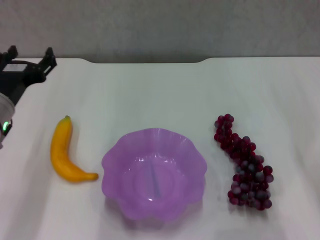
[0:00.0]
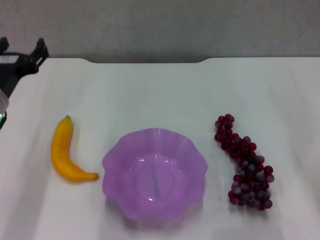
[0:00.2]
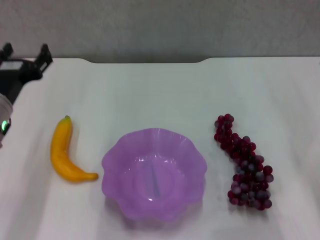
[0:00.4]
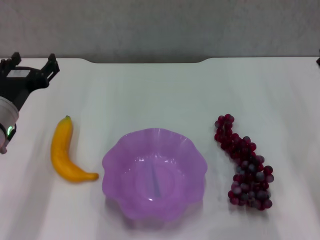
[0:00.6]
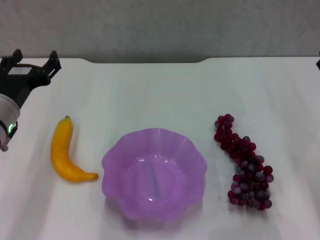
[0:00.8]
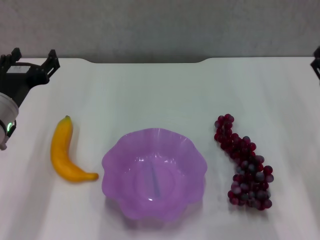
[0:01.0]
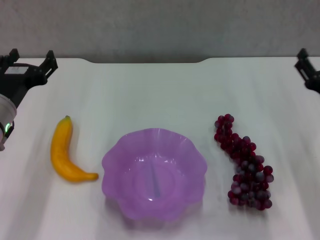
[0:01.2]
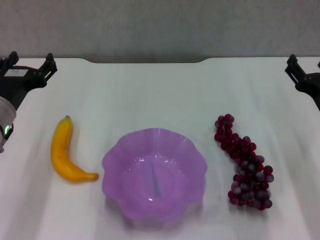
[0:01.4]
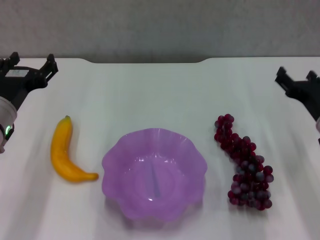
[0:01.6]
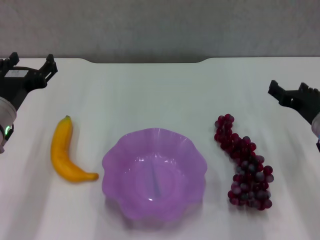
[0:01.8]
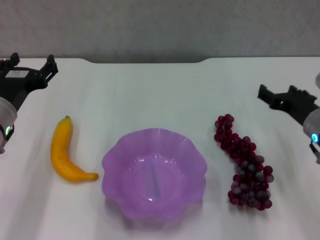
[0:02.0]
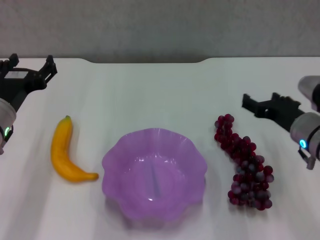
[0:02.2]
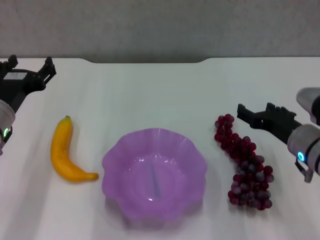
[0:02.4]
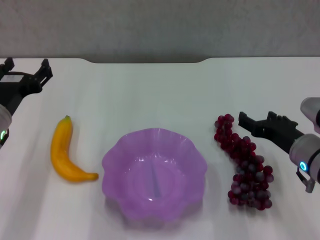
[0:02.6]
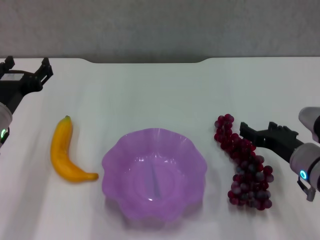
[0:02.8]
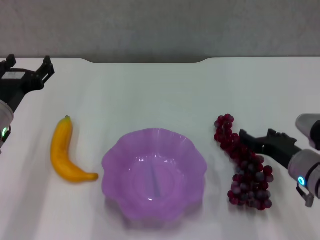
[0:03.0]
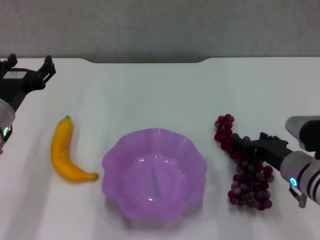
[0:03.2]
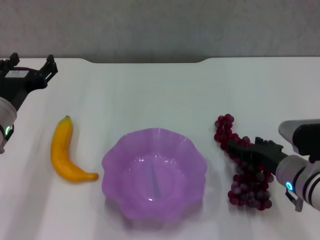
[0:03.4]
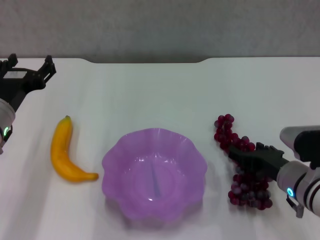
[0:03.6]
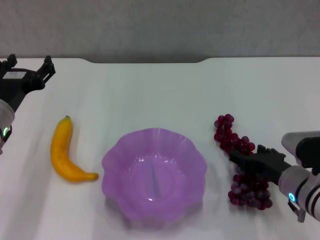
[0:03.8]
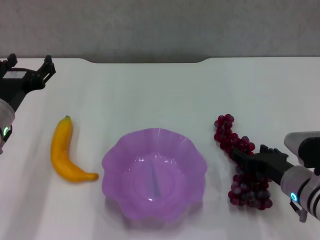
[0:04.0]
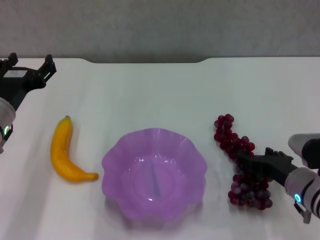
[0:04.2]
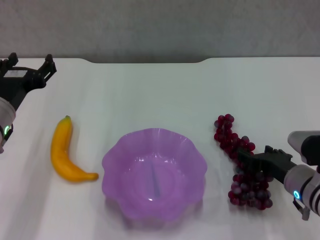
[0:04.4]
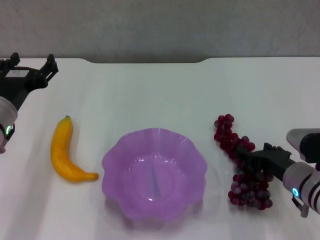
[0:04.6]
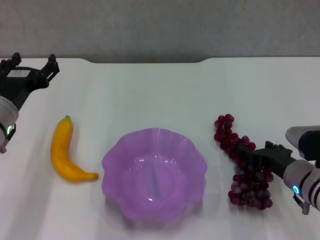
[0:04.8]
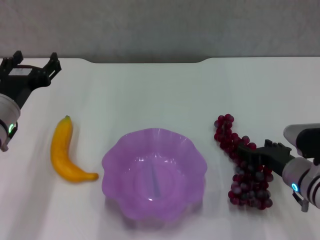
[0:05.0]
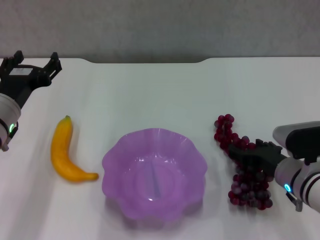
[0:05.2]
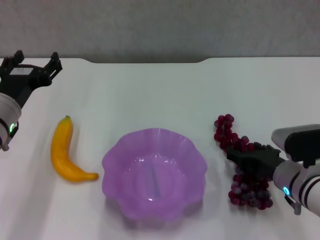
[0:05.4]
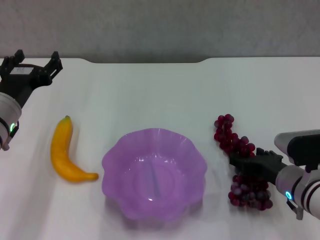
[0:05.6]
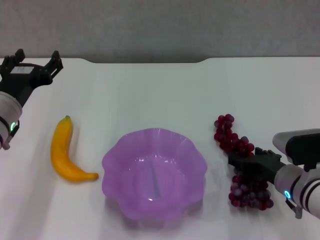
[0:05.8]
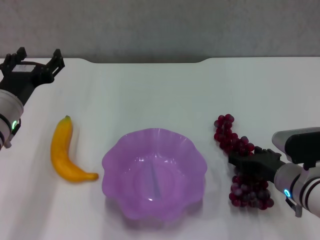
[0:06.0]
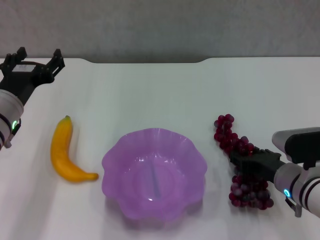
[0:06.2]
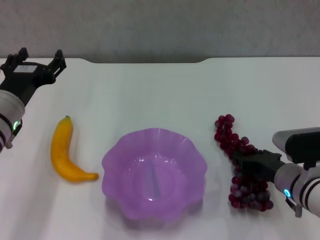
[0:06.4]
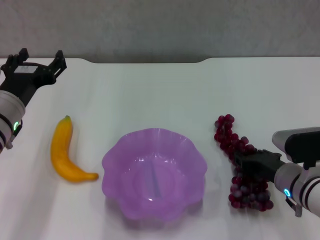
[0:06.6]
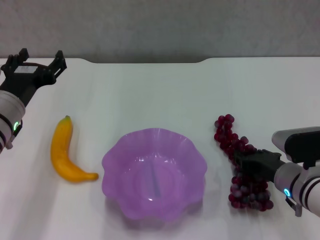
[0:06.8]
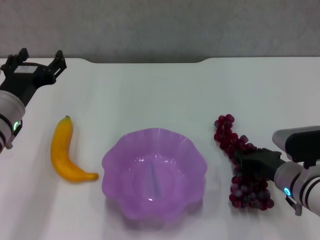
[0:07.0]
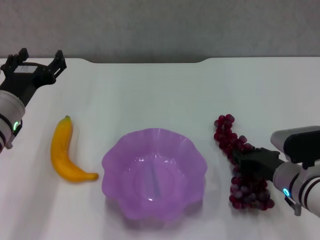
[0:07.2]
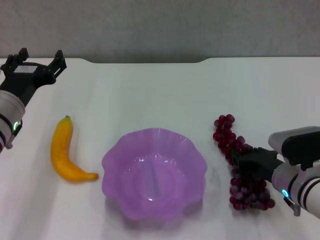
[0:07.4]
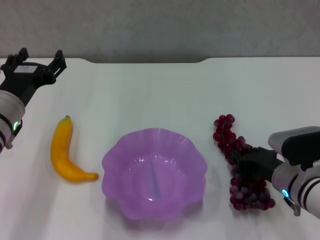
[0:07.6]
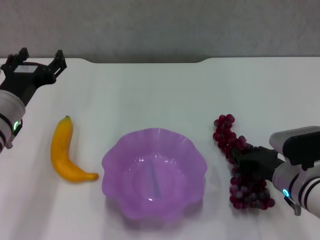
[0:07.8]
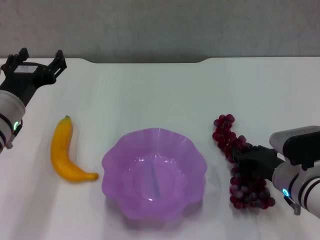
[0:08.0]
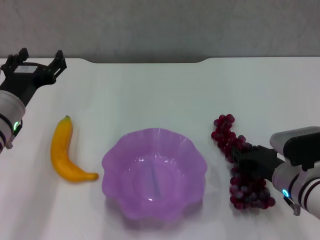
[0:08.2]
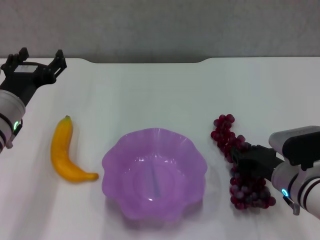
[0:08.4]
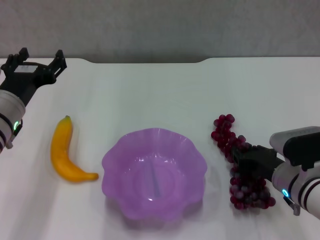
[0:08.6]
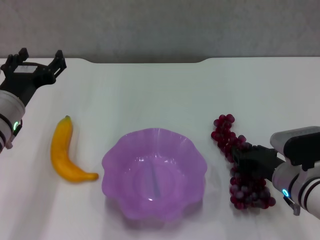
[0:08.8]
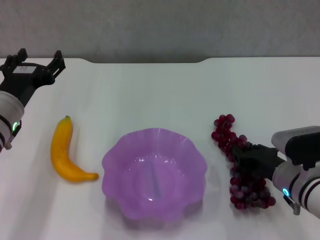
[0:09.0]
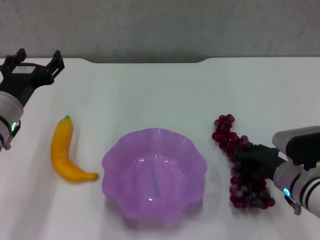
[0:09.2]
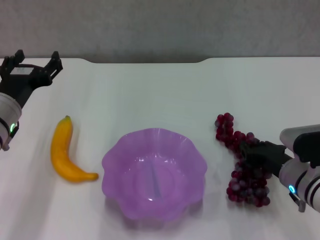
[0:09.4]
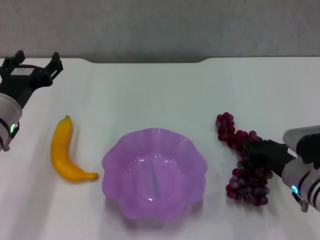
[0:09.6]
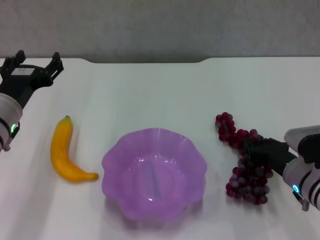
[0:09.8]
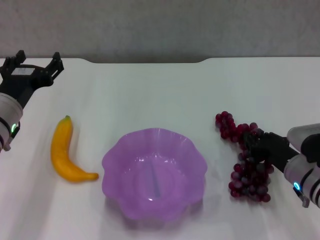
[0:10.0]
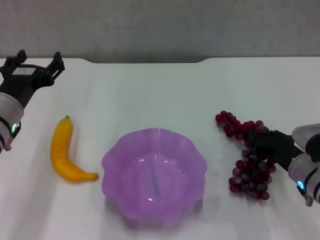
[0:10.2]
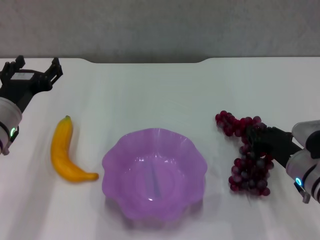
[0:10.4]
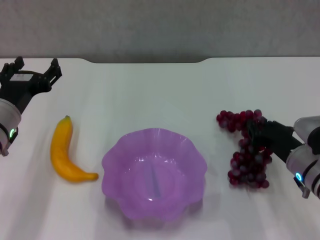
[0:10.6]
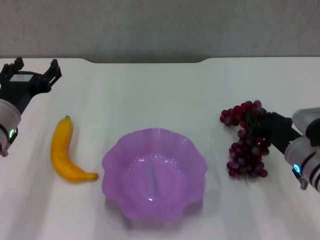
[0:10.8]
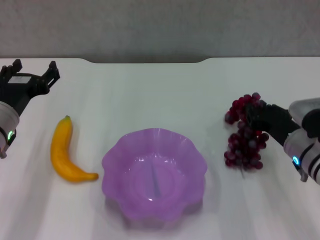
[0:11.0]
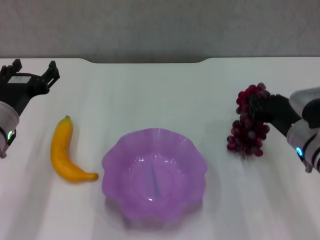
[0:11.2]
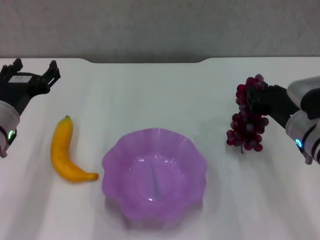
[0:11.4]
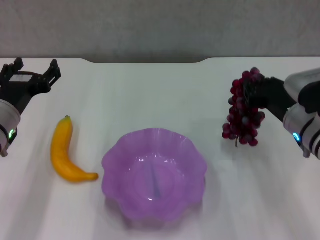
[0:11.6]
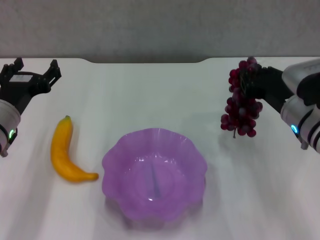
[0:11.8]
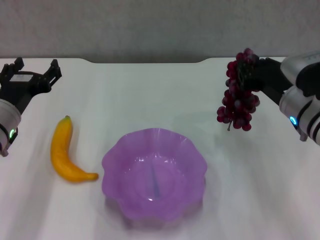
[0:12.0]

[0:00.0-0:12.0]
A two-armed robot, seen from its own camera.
Step, 0:00.0 to 0:06.6: Grasp the grape with right gripper.
0:00.0 to 0:01.6: The right gripper ends up roughly 5 cm from where it was.
0:01.6 to 0:03.0: The right gripper shifts by about 5 cm.
0:03.0 to 0:06.0: The grippers make only small movements.
0:06.0 to 0:07.6: The right gripper closes its fingers.
0:07.6 to 0:09.0: Both grippers stay about where they are.
0:09.0 to 0:10.4: The grippers stay close to where they were, moving slightly.
0:10.4 to 0:12.0: The right gripper is displaced upward by roughly 10 cm.

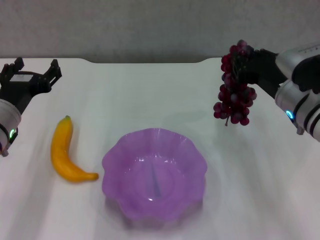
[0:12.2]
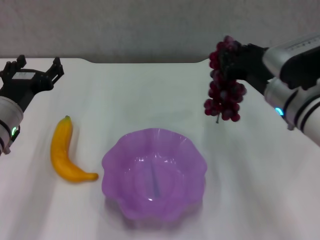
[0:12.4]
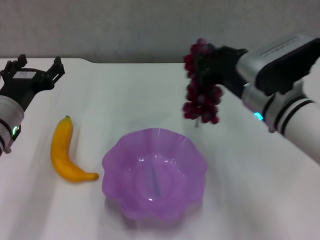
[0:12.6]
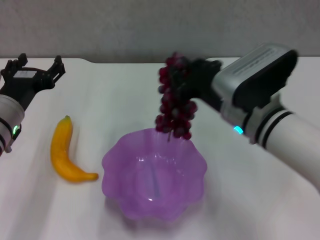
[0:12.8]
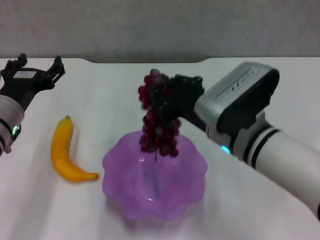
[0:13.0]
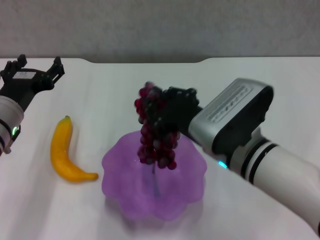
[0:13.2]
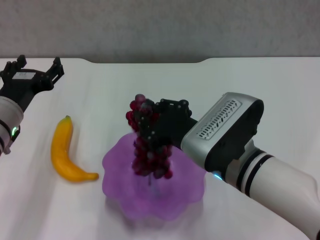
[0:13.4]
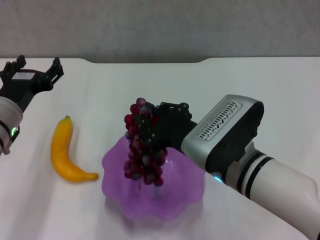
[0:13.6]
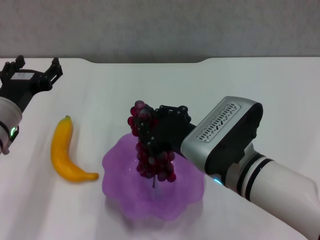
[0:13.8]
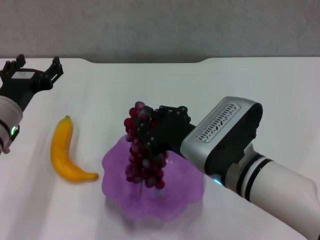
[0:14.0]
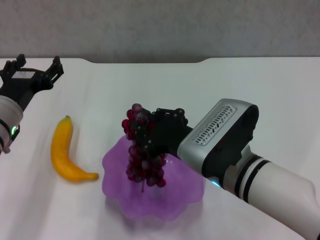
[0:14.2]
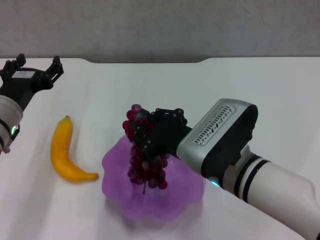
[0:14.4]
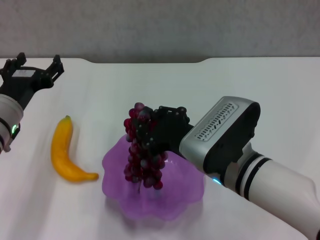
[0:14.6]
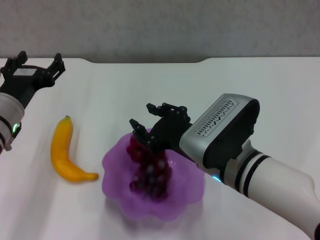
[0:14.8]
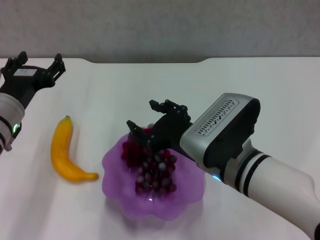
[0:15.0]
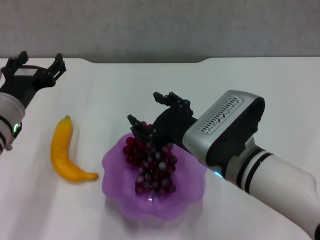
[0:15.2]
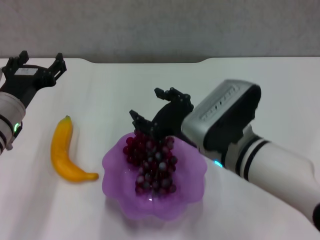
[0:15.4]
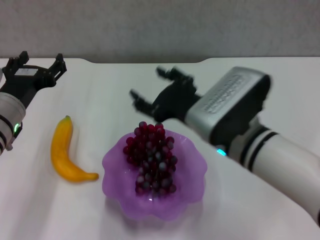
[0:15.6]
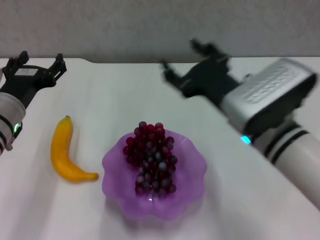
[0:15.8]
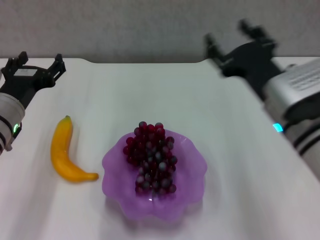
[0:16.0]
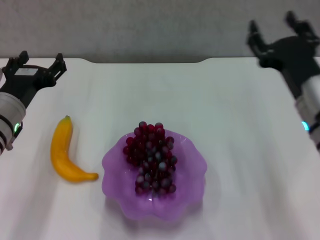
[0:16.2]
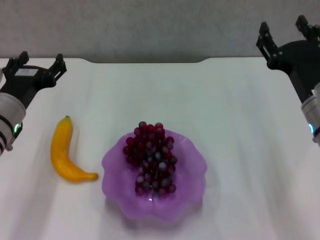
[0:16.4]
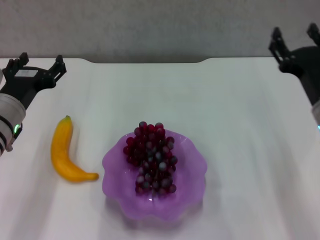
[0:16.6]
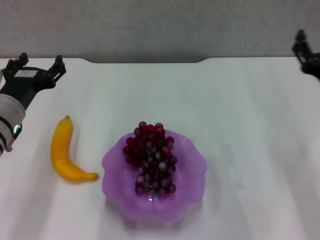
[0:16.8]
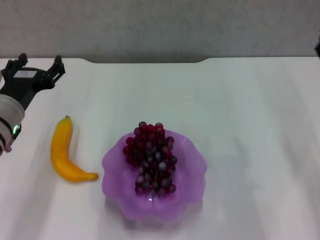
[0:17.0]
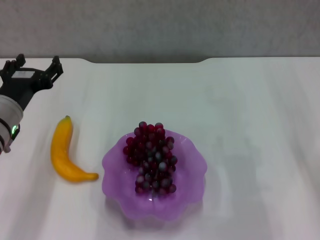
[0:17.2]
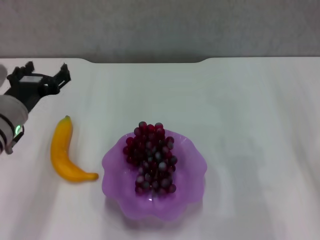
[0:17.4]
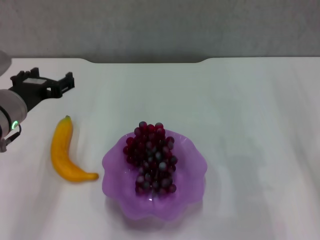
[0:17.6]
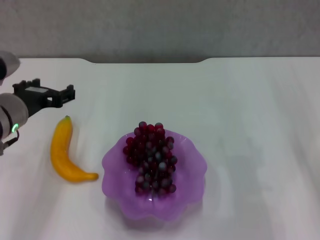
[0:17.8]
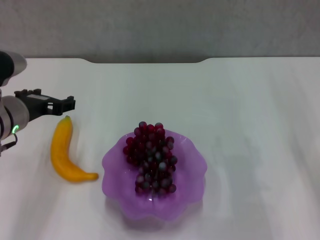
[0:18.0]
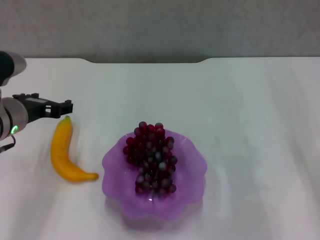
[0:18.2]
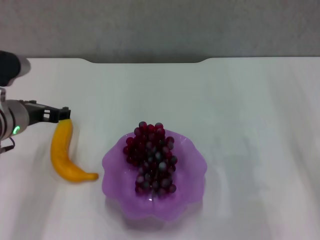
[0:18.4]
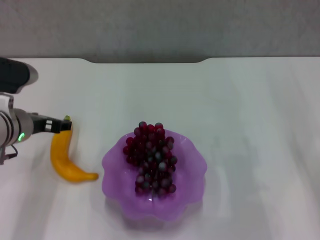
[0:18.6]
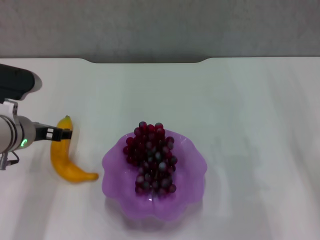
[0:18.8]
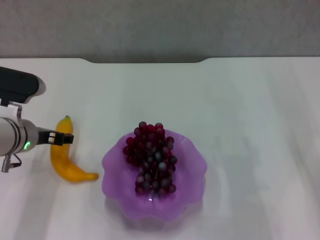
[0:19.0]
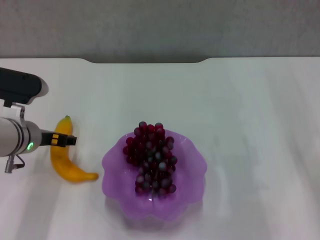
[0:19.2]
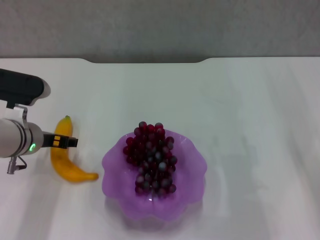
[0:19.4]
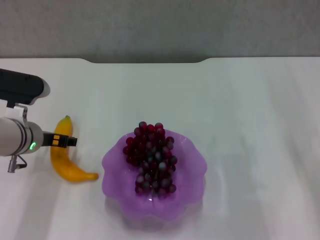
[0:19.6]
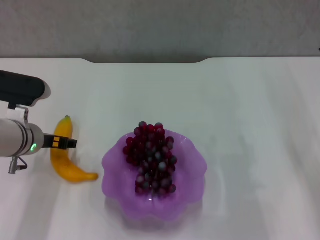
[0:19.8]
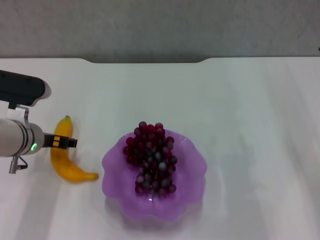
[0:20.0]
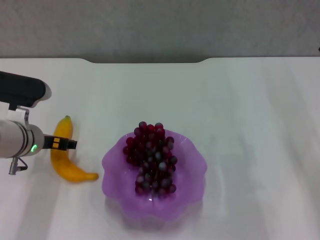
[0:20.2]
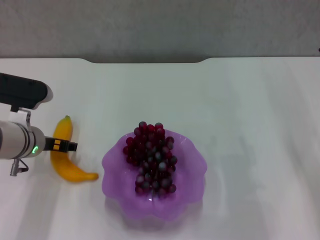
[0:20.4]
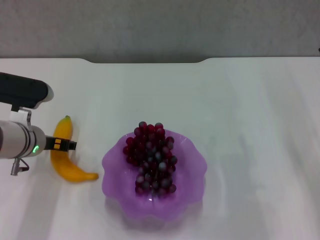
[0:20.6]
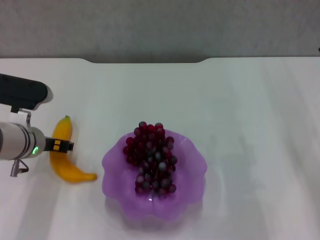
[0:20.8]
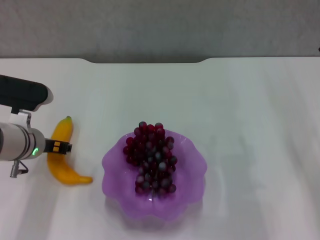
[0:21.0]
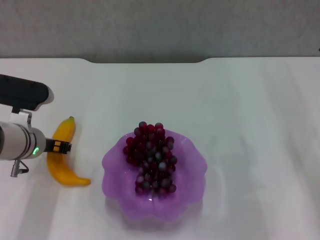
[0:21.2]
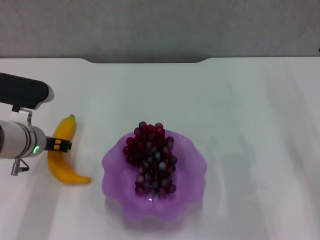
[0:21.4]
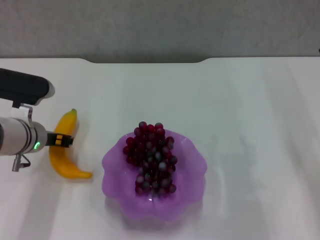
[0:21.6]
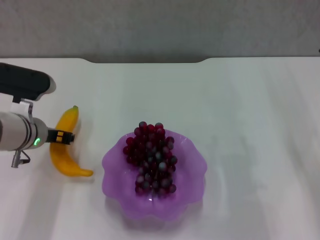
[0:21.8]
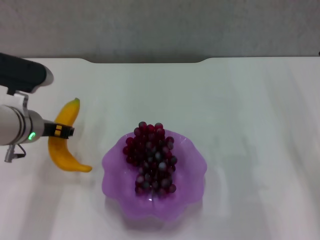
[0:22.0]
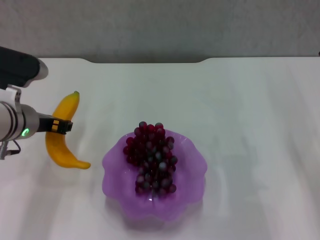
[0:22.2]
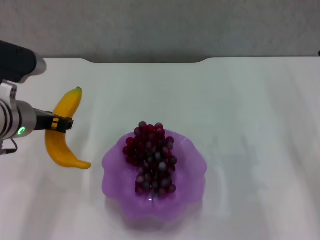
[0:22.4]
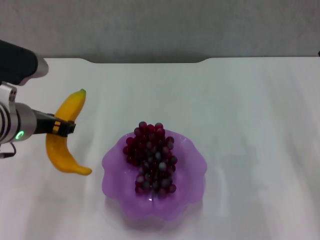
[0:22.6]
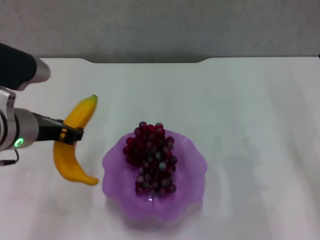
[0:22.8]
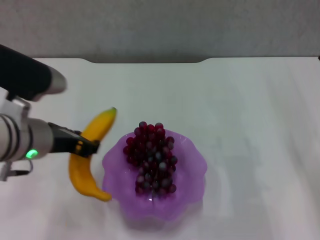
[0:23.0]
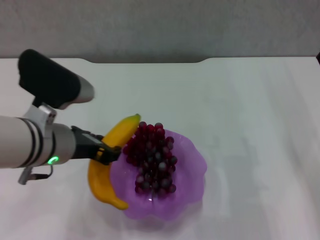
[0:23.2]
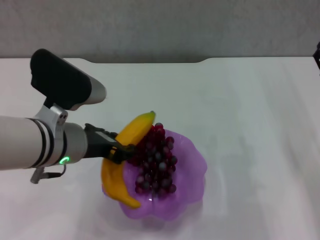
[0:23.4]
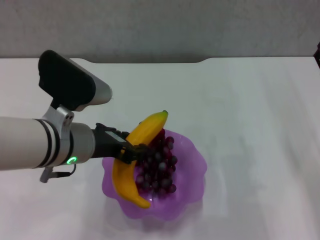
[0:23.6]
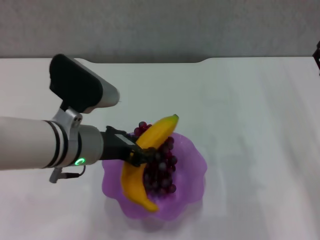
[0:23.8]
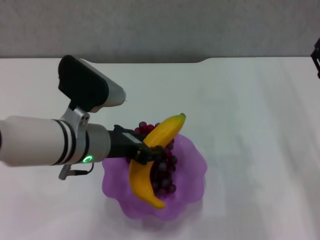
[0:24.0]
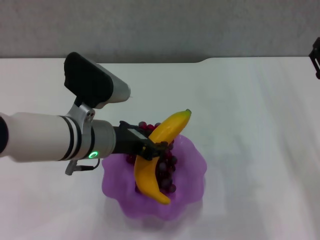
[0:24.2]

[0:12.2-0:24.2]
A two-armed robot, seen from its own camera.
Step, 0:12.2 to 0:15.4: Place the grape in the purple plate with right gripper.
Step, 0:15.6 to 0:21.2: Grasp the banana with left gripper.
0:12.2 to 0:13.8: The right gripper is displaced to the left and backward by roughly 15 cm.
0:13.8 to 0:15.2: The right gripper opens up.
0:15.2 to 0:16.6: The right gripper shifts some 15 cm to the right.
0:16.6 to 0:18.2: The right gripper travels to the right by some 5 cm.
0:18.2 to 0:19.8: The left gripper goes some 5 cm downward.
0:19.8 to 0:21.2: The left gripper closes its fingers.
0:21.2 to 0:22.6: The left gripper moves upward, some 10 cm.
0:22.6 to 0:24.2: The left gripper shifts about 10 cm to the right.
